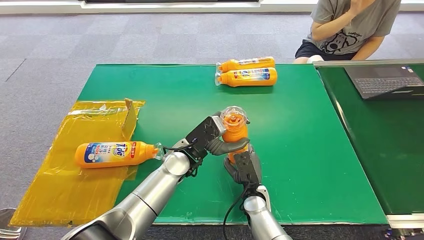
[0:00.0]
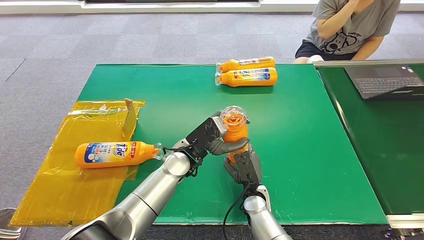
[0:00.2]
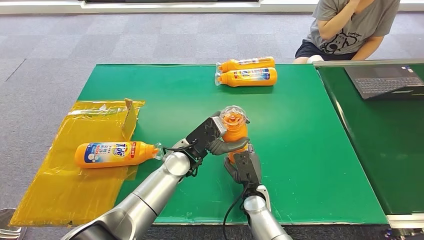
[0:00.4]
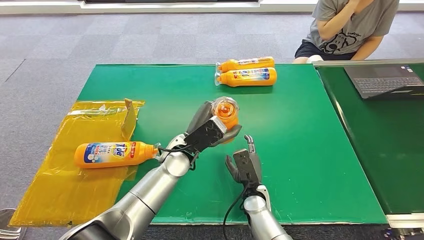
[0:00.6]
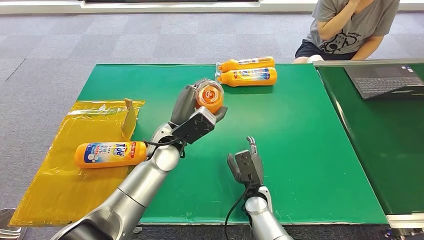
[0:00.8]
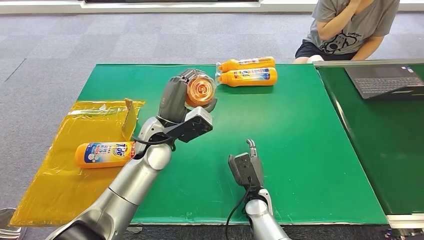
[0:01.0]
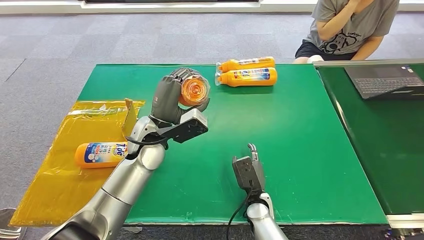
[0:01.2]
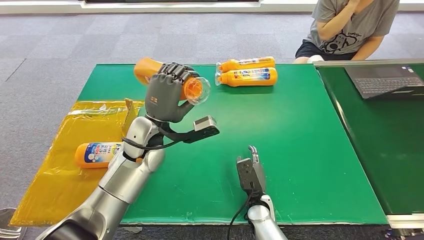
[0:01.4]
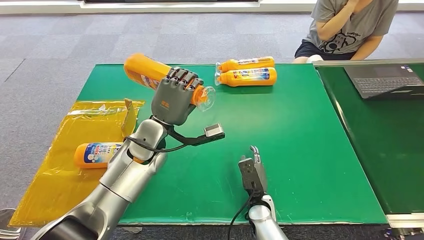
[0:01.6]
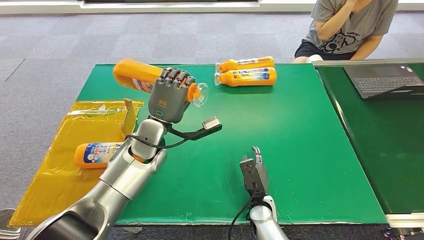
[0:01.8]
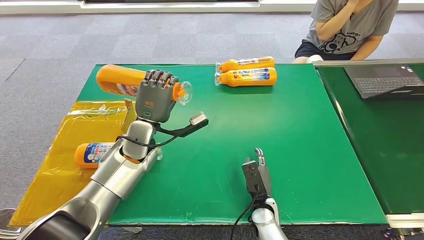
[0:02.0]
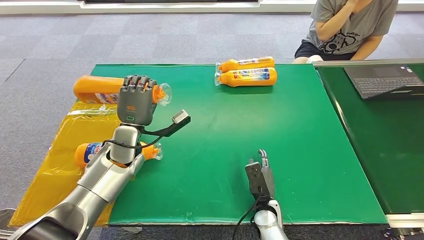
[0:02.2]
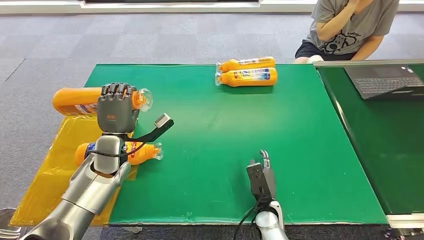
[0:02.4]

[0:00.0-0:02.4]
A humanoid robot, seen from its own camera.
Step, 0:00.0 to 0:02.2: Turn the bottle to the front side.
0:00.0 to 0:01.2: The left hand moves to the left and upward, about 10 cm.
0:01.2 to 0:02.4: The left hand travels to the left and downward by roughly 15 cm.
